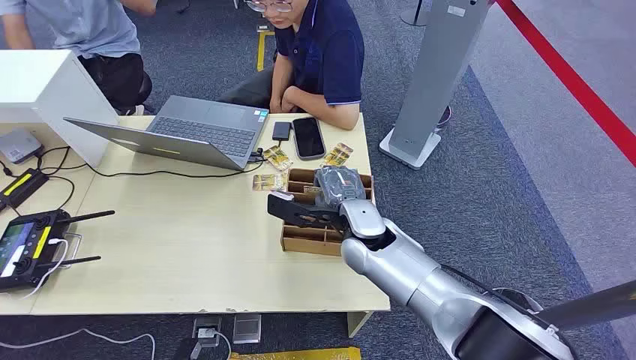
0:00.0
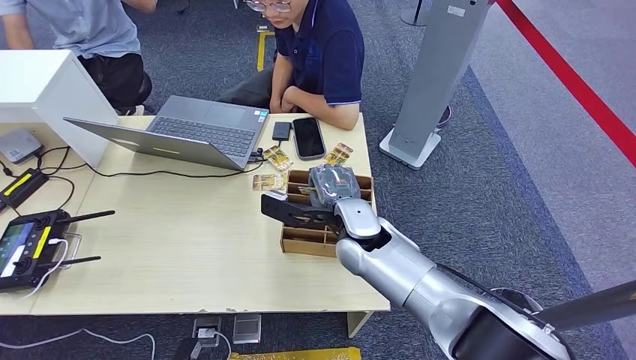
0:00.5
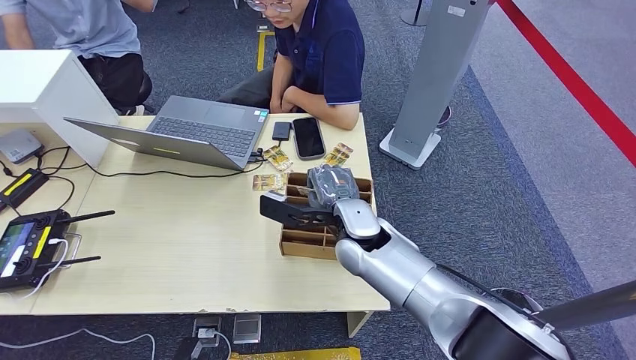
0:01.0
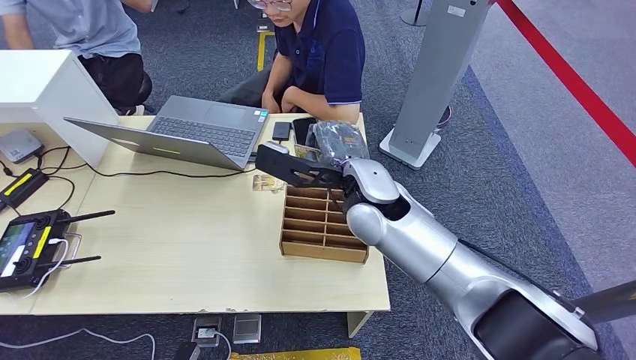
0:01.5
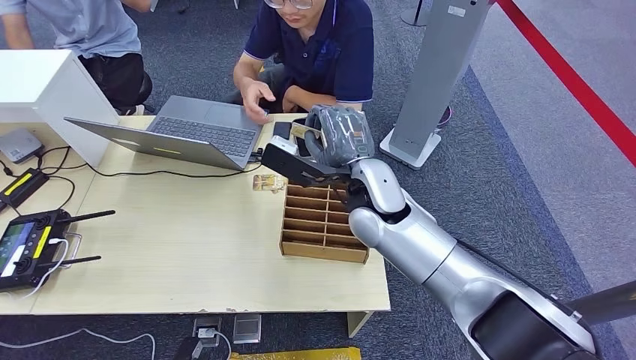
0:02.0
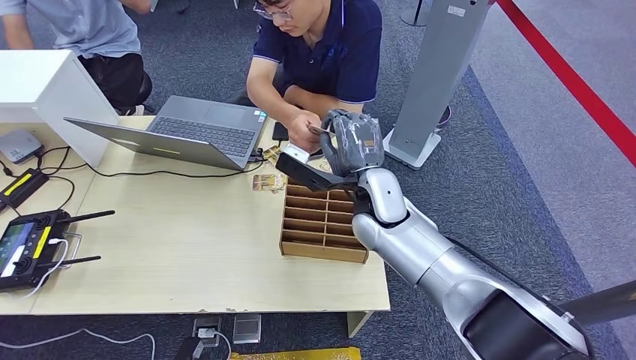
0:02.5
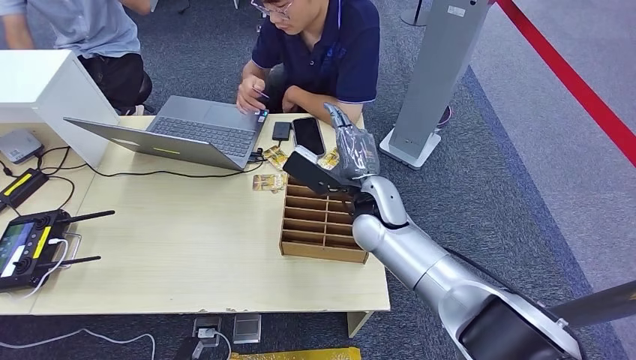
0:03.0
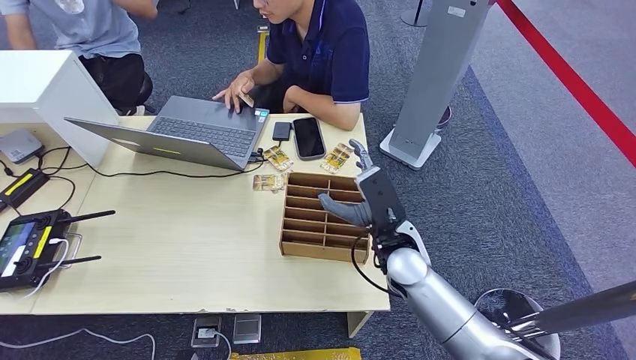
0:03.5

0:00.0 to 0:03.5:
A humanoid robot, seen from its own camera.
Step, 0:00.0 to 0:01.5: Pick up the key card from the card box.
Step, 0:02.0 to 0:03.5: Hand the key card to the target.
0:02.0 to 0:03.5: The right hand moves downward, to the right and backward, approximately 15 cm.
